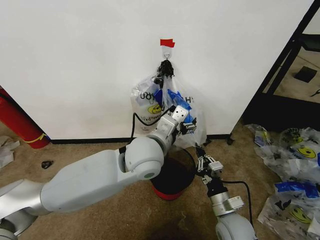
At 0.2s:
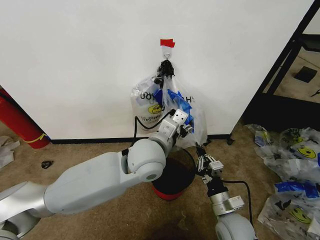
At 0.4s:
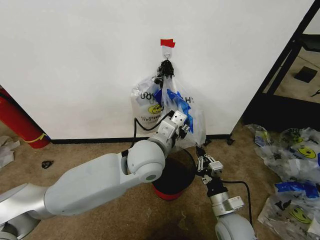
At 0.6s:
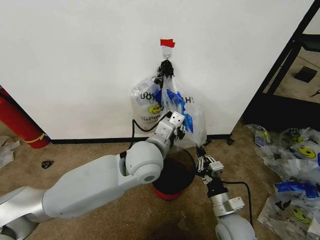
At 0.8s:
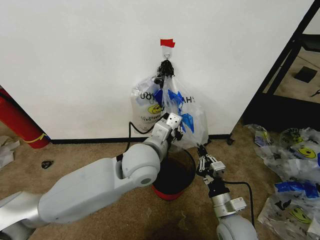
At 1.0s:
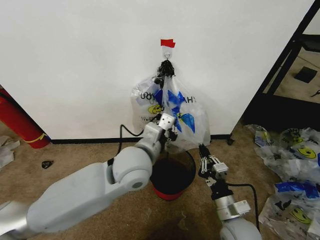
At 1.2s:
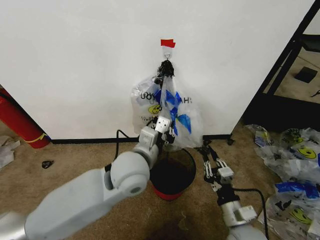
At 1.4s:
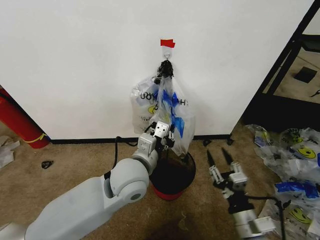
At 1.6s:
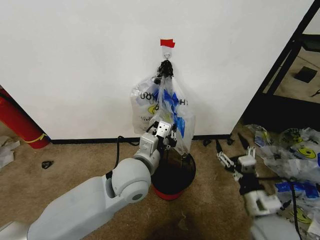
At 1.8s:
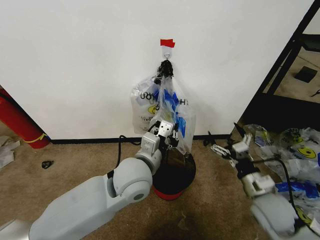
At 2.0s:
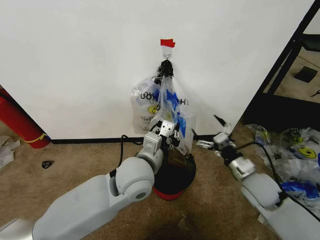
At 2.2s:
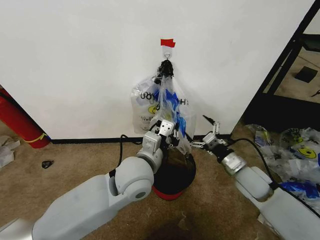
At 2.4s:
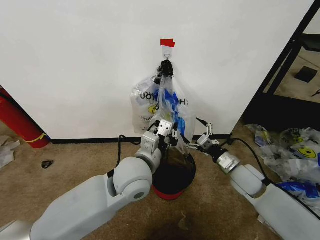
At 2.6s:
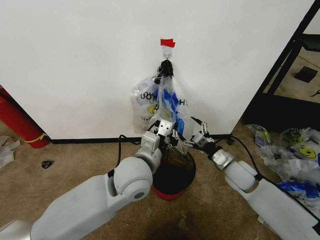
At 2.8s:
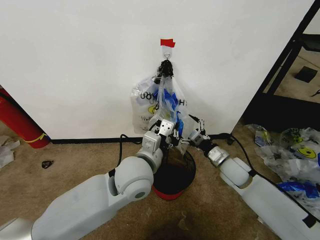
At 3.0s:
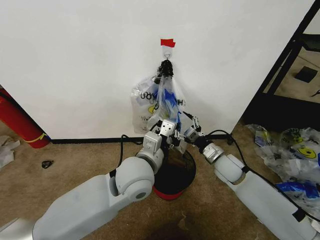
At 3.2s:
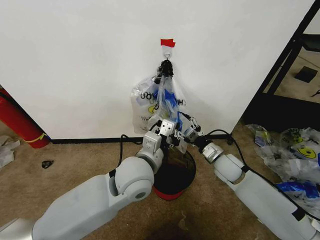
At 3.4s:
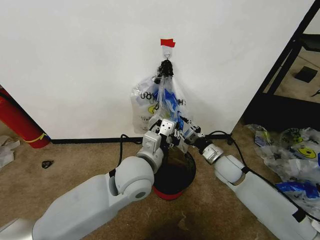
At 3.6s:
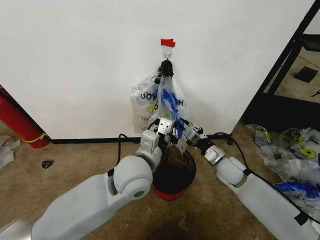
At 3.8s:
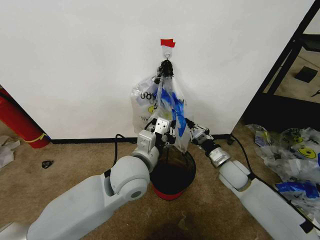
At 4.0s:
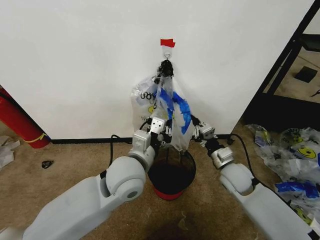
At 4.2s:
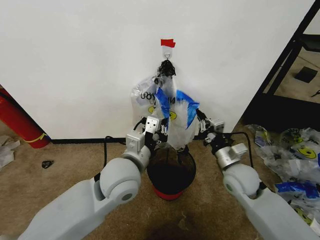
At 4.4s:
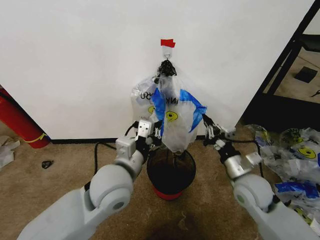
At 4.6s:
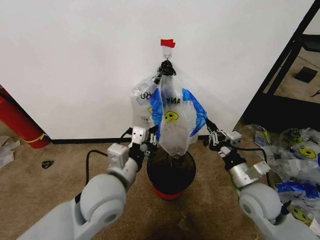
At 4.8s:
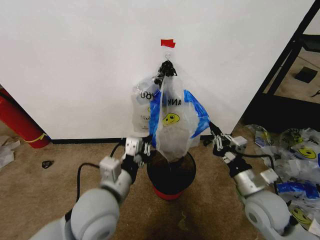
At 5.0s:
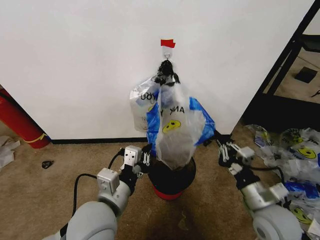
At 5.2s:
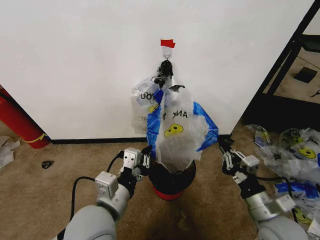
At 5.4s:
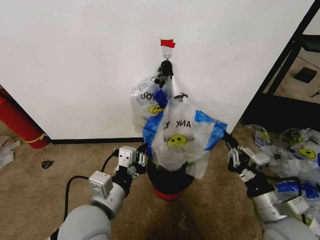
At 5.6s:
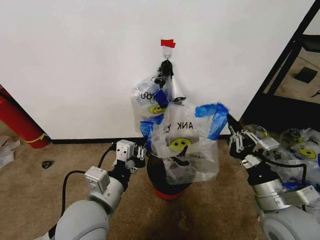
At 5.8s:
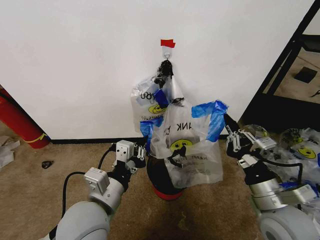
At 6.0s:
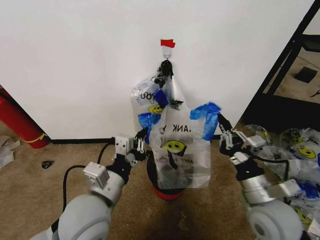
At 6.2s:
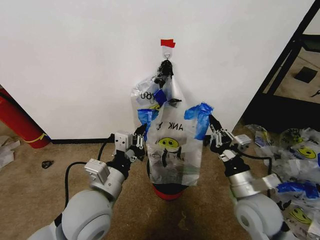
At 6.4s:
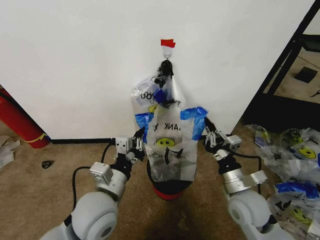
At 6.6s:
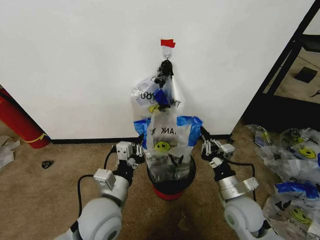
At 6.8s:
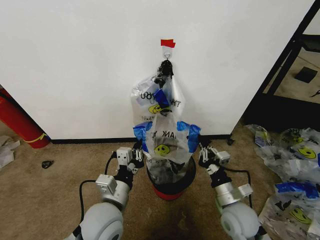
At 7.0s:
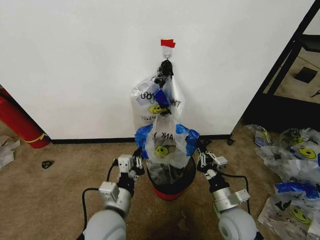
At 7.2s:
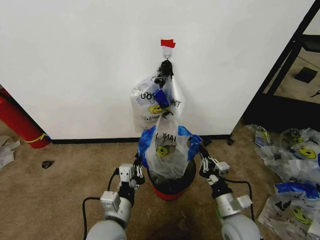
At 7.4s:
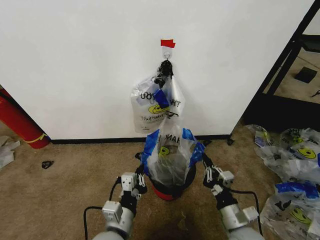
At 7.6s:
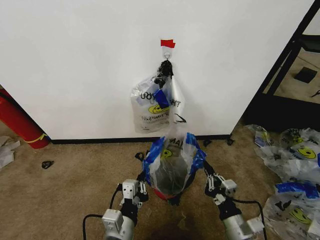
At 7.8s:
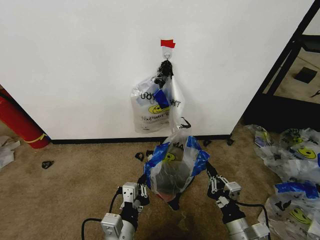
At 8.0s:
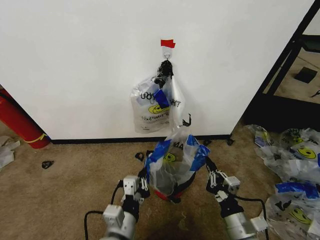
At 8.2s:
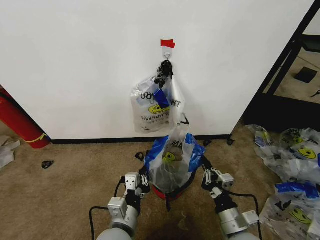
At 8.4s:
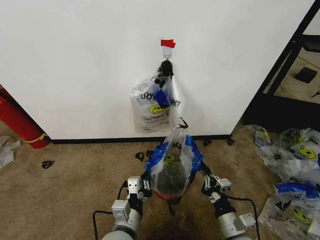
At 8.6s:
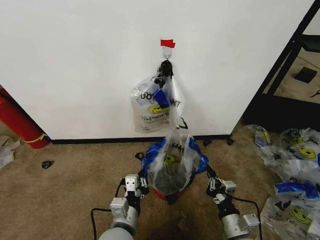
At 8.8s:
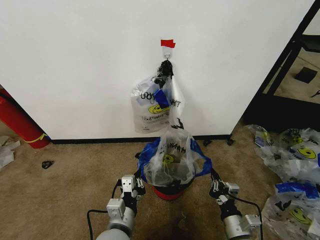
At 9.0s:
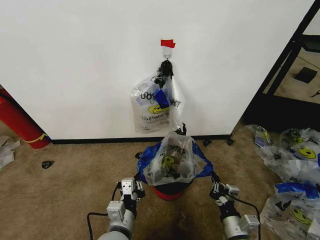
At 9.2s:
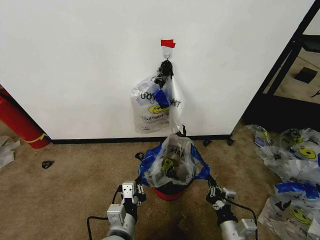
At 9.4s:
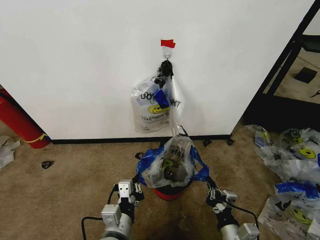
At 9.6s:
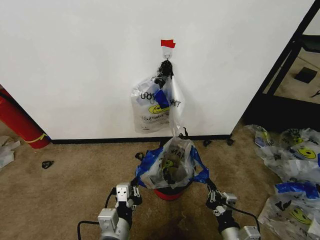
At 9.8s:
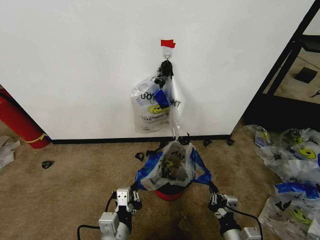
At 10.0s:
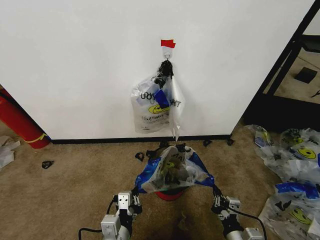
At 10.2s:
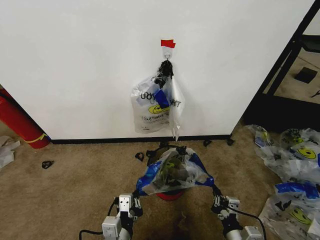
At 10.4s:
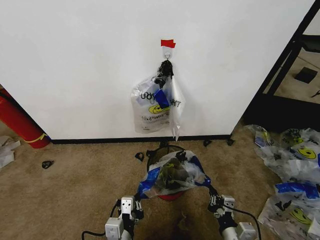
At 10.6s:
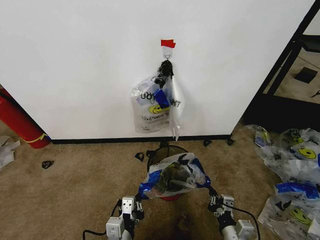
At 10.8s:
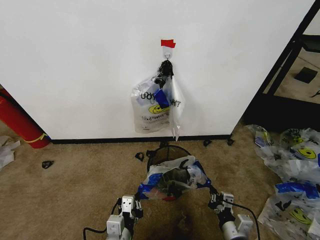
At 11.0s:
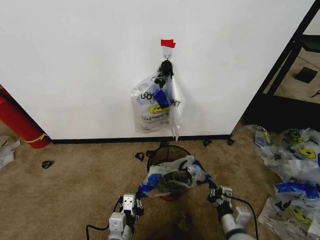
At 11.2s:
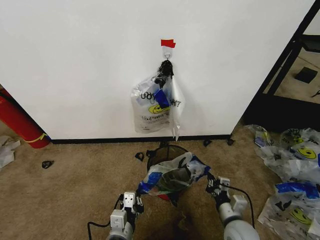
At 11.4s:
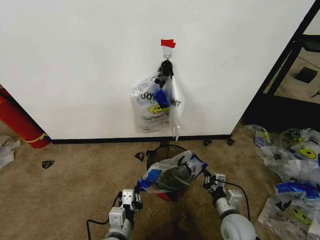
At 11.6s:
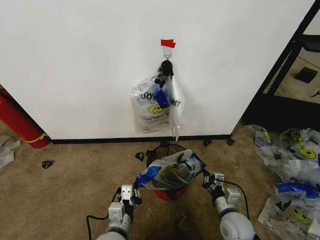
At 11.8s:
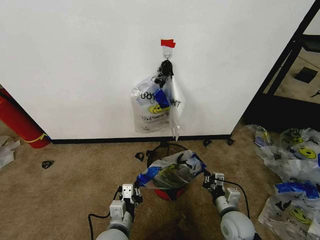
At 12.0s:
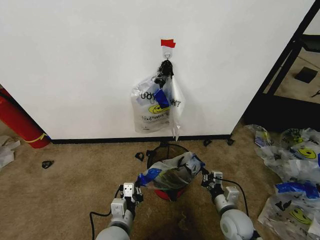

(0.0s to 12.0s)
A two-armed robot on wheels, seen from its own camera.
Task of the whole recording: Pick up the garbage bag from the wall and place it over the trash bin.
0.0s - 1.6s: The left gripper moves some 5 cm, and closes its fingers; the right gripper shifts about 10 cm to the right and upward, and opens its fingers.
1.6s - 3.0s: The right gripper travels forward by roughly 20 cm.
3.0s - 4.4s: The left gripper changes place by some 5 cm. Meanwhile the right gripper is displaced backward by about 10 cm, and closes its fingers.
4.4s - 6.0s: Both grippers travel together backward, approximately 10 cm.
6.0s - 7.6s: Both grippers travel together downward and backward, some 15 cm.
7.6s - 9.0s: The grippers stay close to where they were, moving slightly.
9.0s - 10.4s: The grippers move only a little.
10.4s - 12.0s: The right gripper heads forward, covering roughly 10 cm. Meanwhile the left gripper is displaced forward by some 5 cm.

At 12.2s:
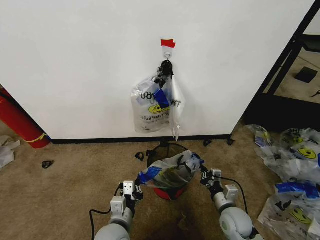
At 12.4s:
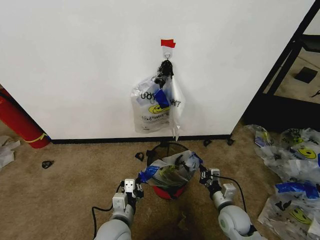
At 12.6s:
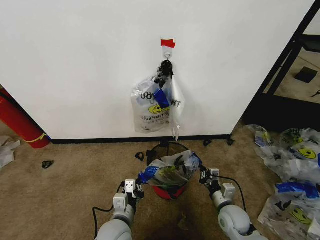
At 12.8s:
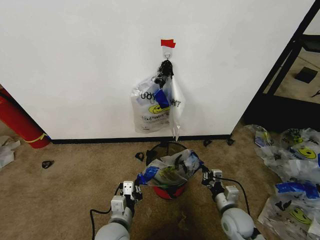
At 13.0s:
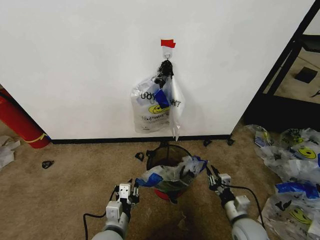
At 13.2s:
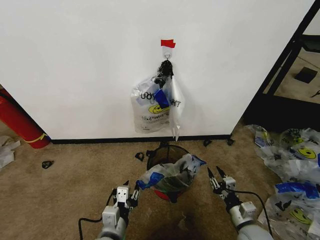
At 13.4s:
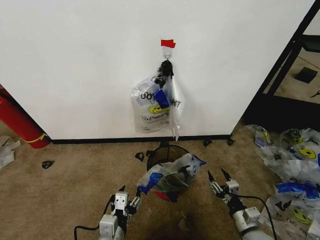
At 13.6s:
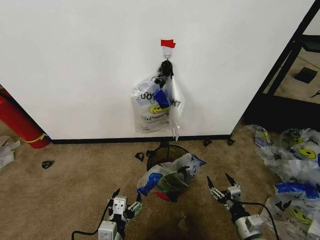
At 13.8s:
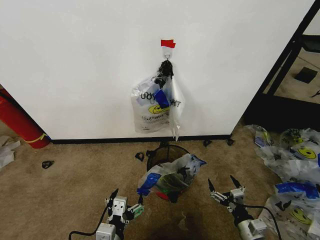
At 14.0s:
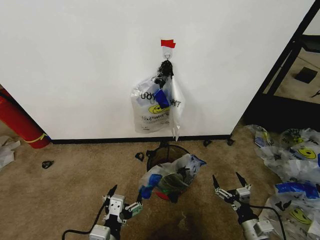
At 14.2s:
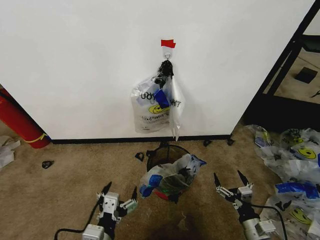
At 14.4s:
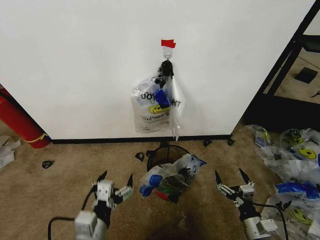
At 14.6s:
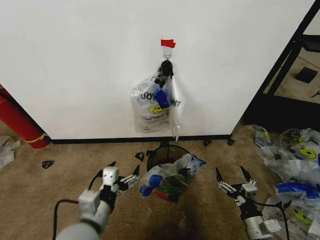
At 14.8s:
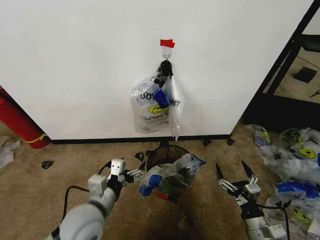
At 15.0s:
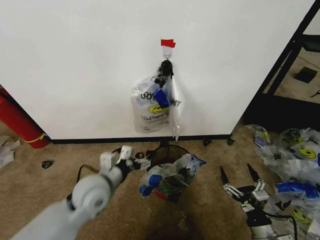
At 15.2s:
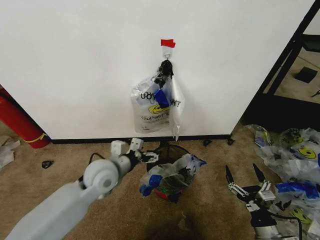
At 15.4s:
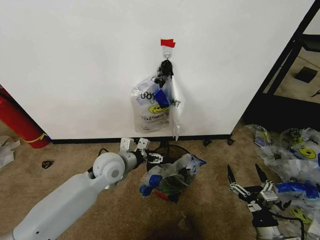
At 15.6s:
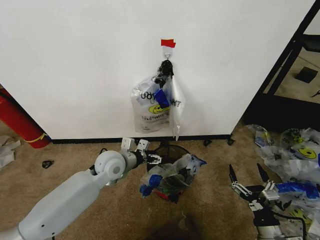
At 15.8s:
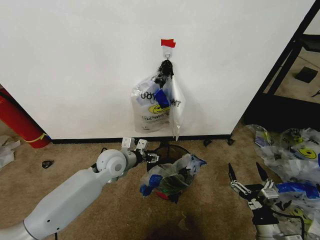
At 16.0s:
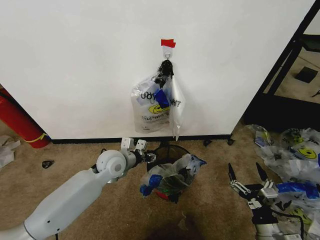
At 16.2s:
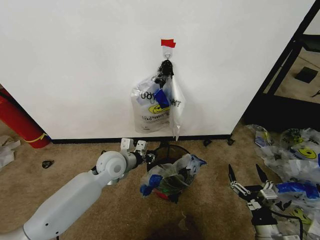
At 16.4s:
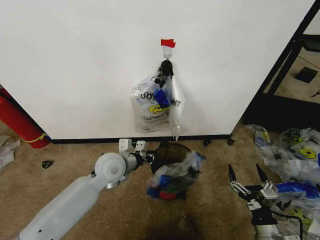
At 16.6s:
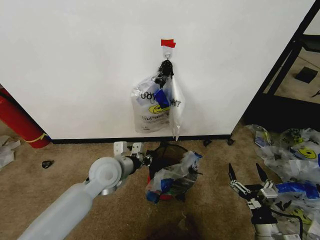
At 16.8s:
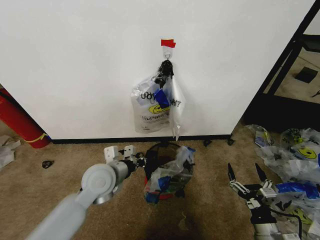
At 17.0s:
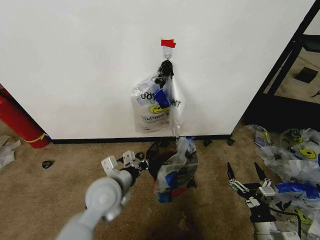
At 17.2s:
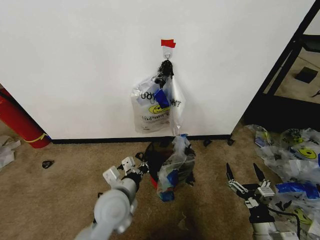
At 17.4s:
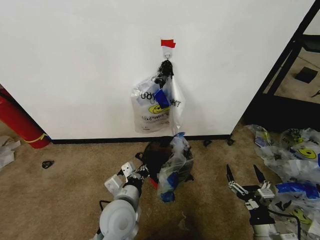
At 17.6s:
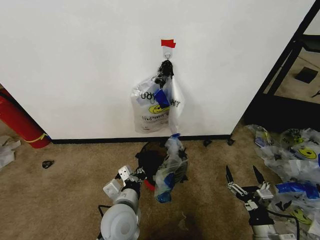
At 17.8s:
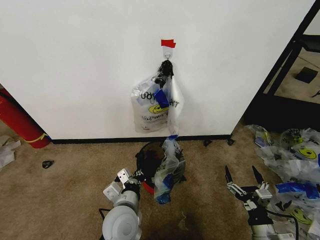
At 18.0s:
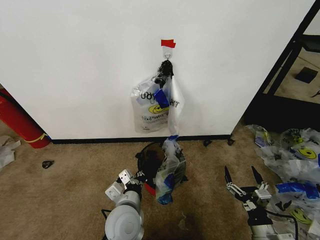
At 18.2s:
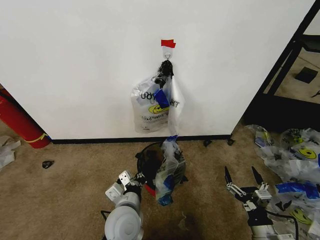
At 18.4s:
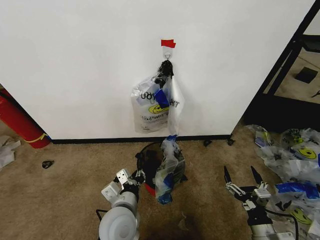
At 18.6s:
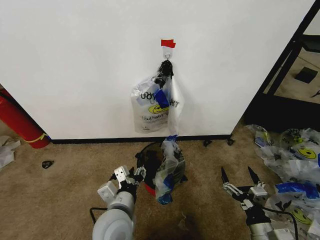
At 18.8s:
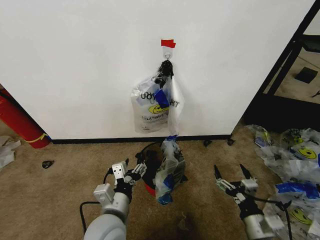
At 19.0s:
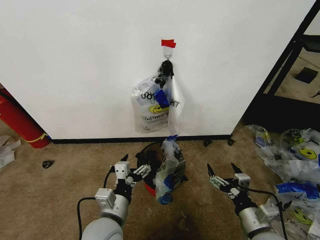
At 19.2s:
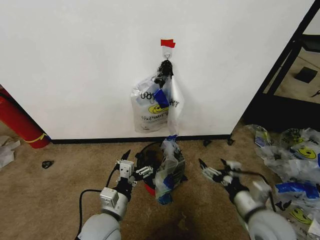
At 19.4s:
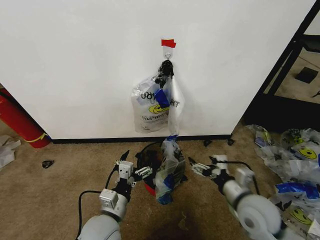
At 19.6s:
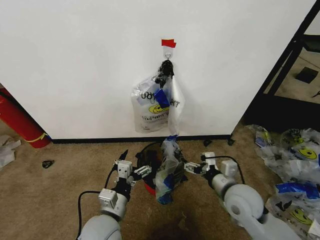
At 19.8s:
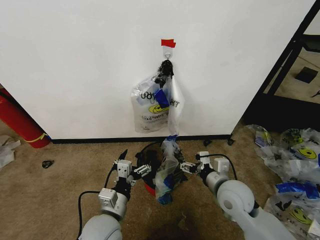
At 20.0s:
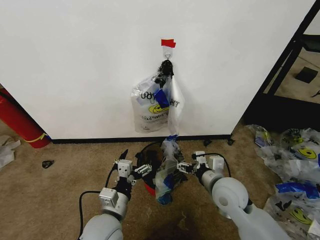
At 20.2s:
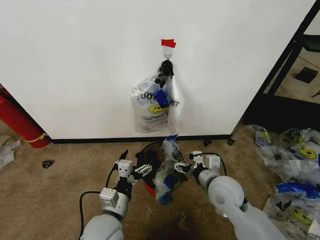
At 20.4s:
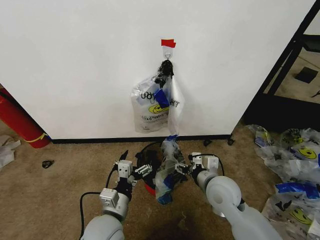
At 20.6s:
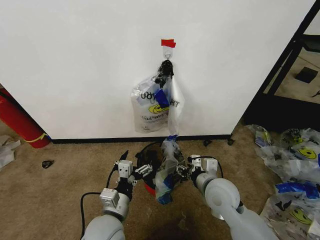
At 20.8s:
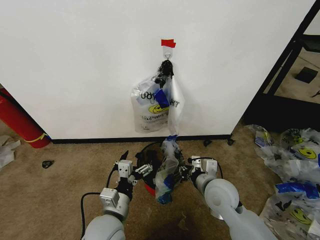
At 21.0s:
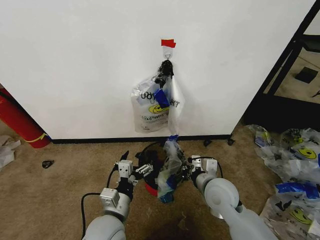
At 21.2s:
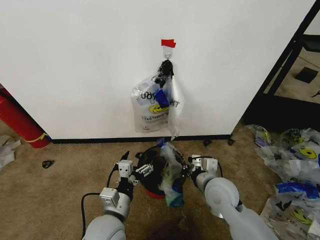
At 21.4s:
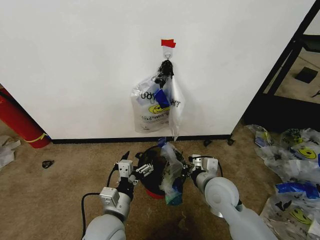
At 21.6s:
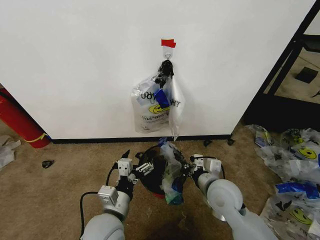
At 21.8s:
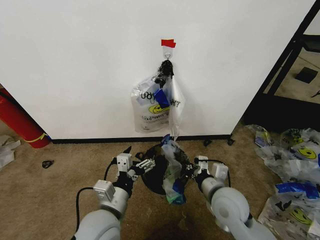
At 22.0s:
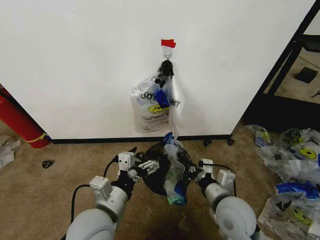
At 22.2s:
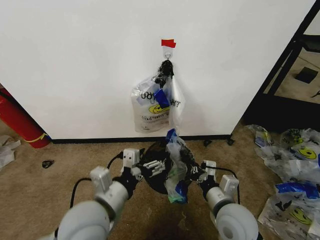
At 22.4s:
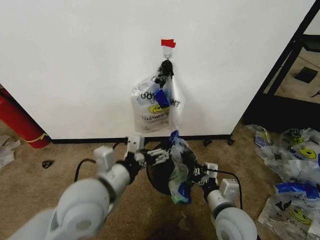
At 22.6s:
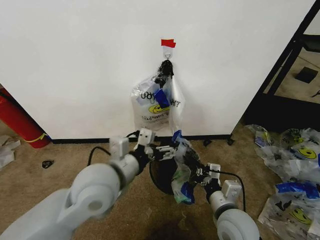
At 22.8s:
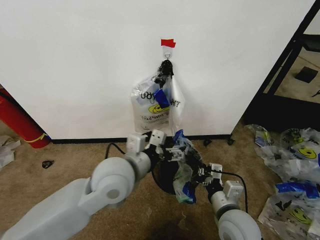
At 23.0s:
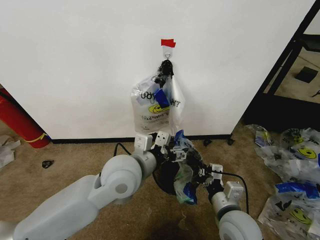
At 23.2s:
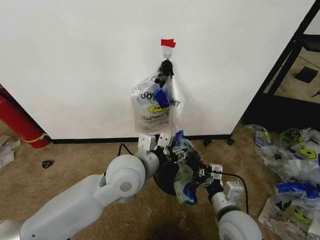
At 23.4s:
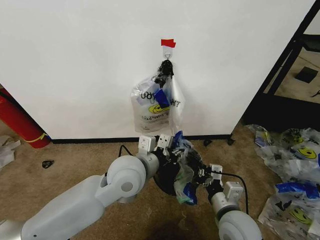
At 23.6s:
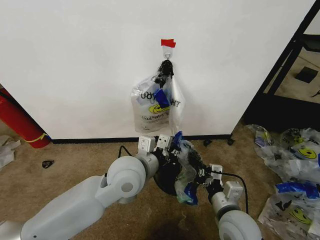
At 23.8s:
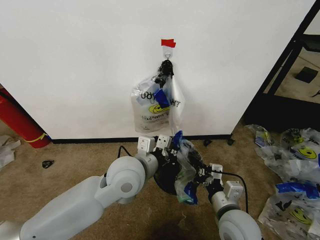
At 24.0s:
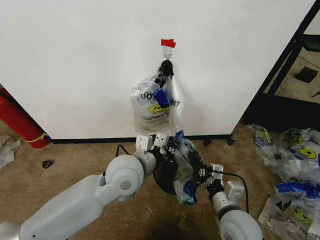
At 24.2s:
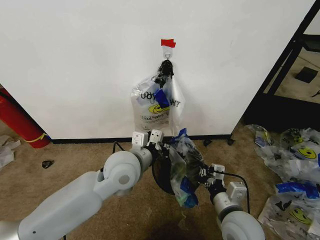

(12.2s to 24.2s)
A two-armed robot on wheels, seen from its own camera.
Task of the whole recording: Pick up the garbage bag from the wall and place it over the trash bin.
12.2s - 13.8s: The right gripper shifts roughly 10 cm backward and to the right, and opens its fingers. The left gripper is displaced backward by some 10 cm, and opens up.
13.8s - 15.2s: The left gripper travels forward by some 25 cm.
15.2s - 16.6s: The left gripper closes.
16.6s - 18.2s: The left gripper moves backward, downward and to the right, about 15 cm.
18.2s - 19.8s: The left gripper moves about 5 cm, and opens, while the right gripper is displaced forward, upward and to the left by some 20 cm.
19.8s - 21.2s: The right gripper closes.
21.2s - 22.6s: The right gripper travels backward by approximately 10 cm; the left gripper travels upward by about 15 cm.
22.6s - 24.2s: The left gripper shifts about 5 cm forward, and closes.
